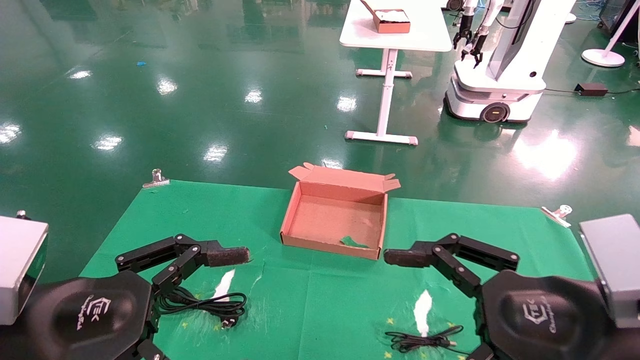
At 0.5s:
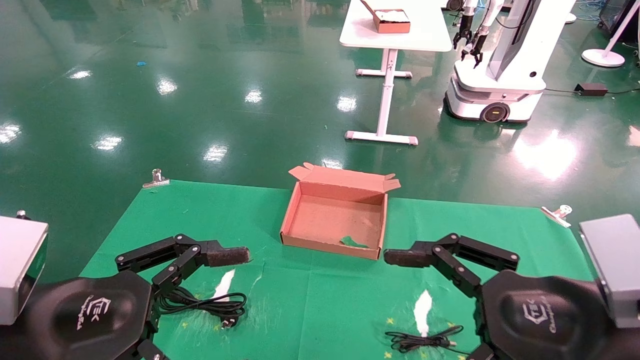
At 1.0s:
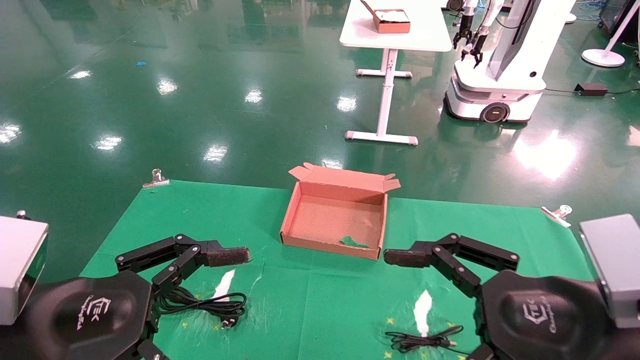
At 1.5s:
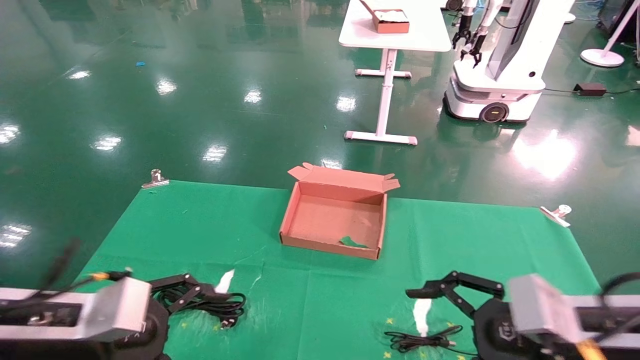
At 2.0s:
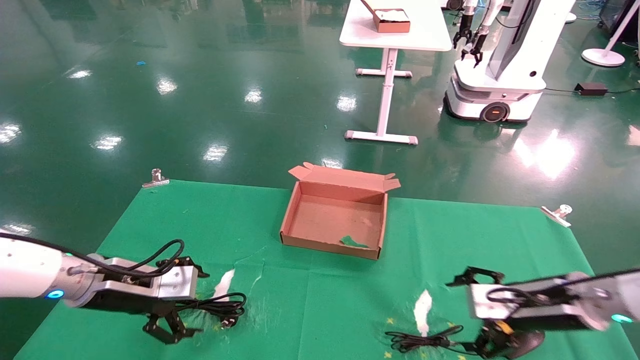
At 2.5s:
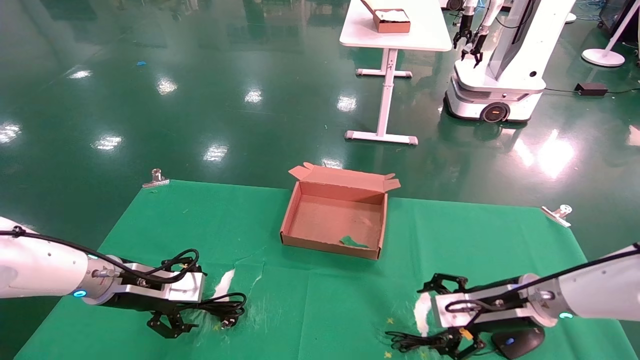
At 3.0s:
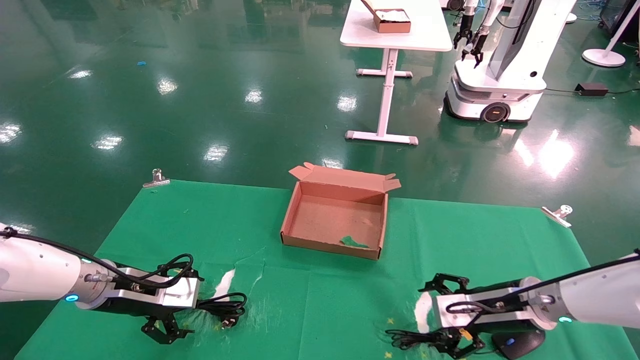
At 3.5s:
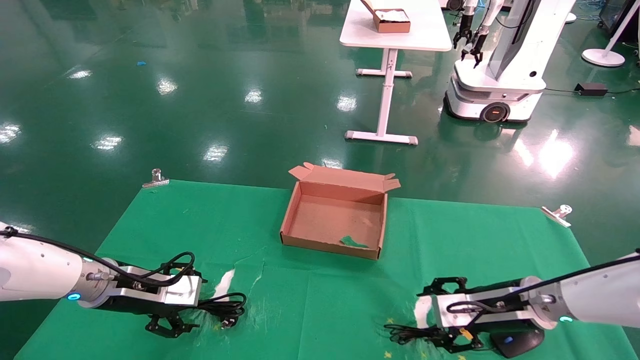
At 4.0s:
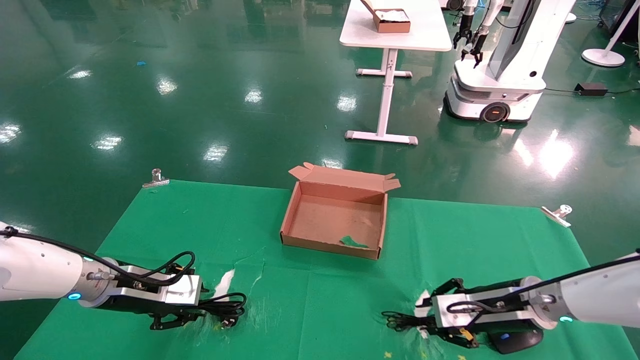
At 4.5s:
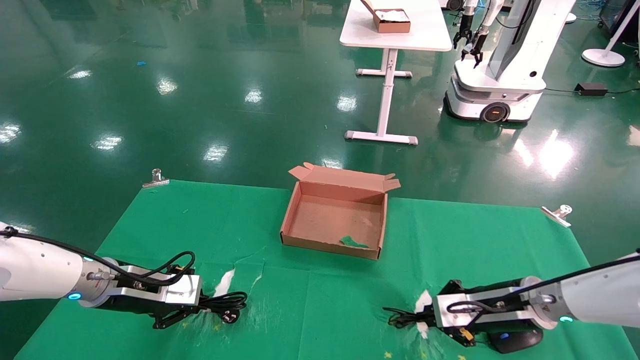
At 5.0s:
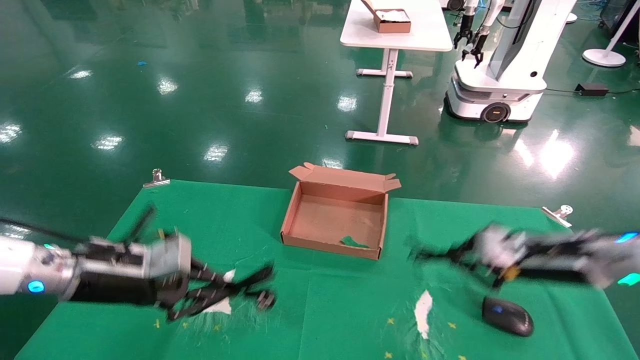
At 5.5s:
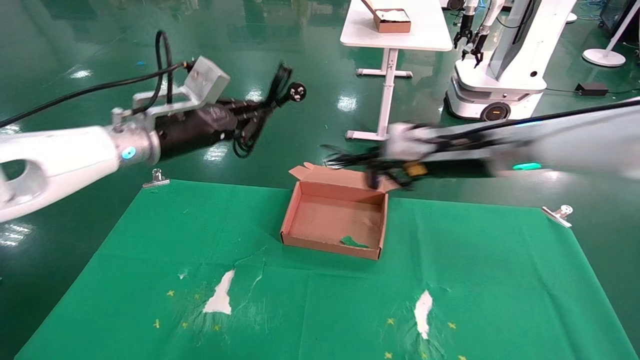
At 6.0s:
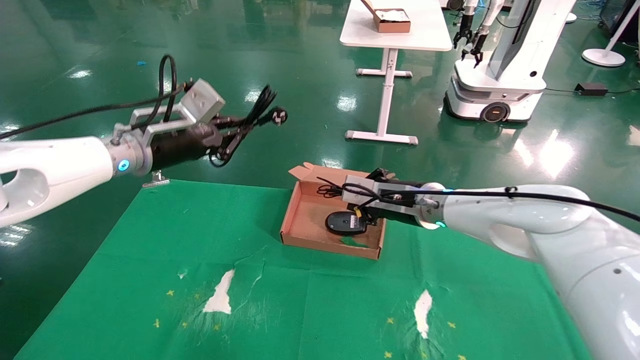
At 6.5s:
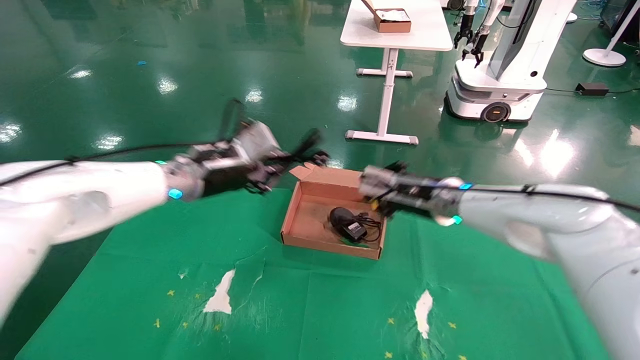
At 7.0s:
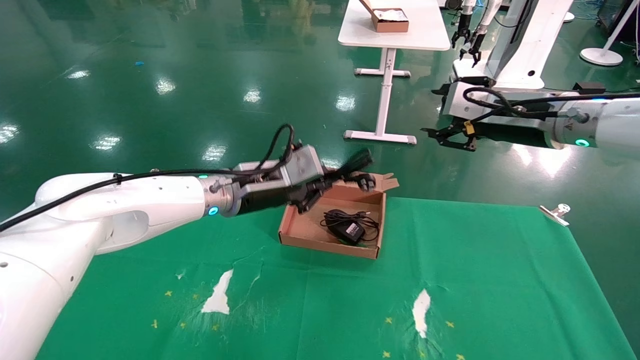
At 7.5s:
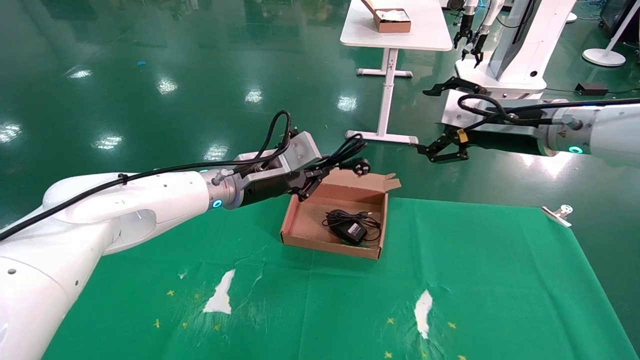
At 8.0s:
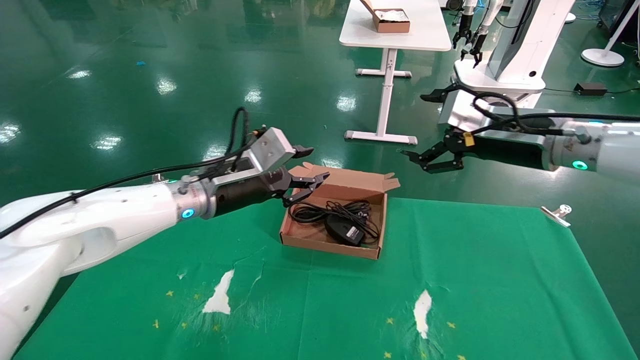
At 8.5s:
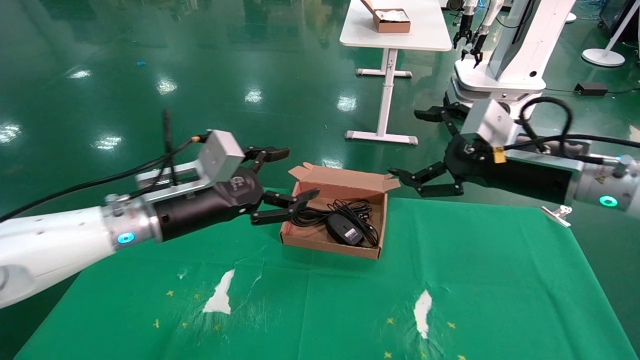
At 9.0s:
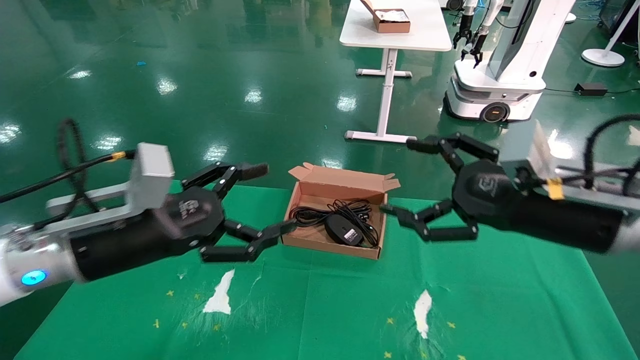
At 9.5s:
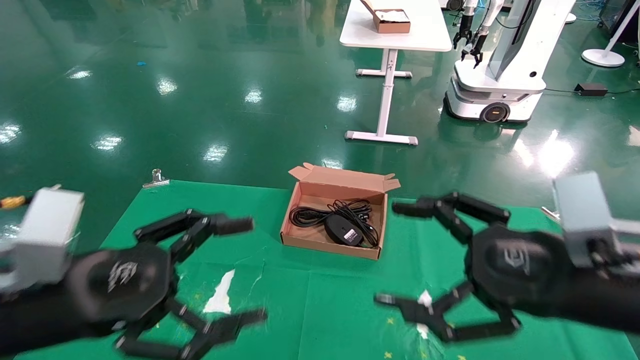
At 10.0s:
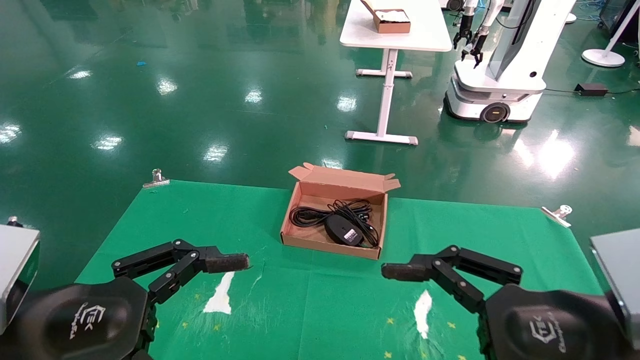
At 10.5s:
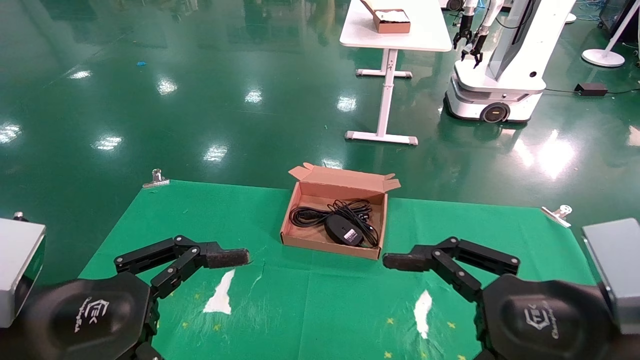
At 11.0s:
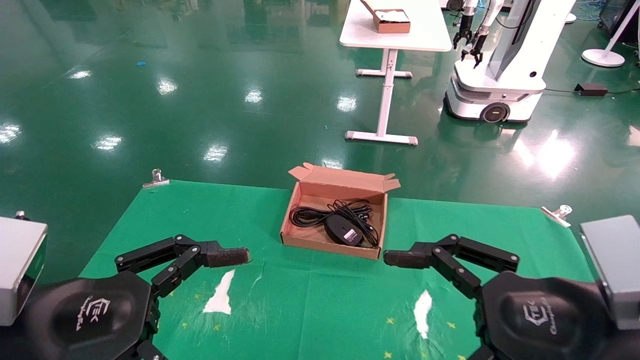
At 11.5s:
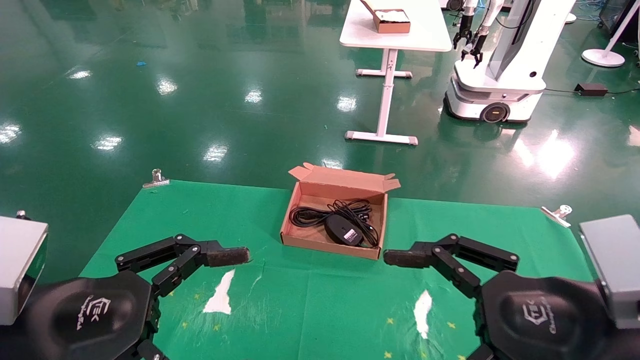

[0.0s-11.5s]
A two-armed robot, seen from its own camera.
Step, 1.5s to 4.0s: Grab and lift both the mouse and power cord from the accessory packaging area at the same time.
Step, 4.5s to 8.0s: Place the mouse and power cord into the box.
0.0s to 2.0s: The left gripper moves forward, approximately 20 cm; the right gripper heads forward and downward, covering approximately 20 cm.
2.0s to 4.0s: The left gripper closes. The right gripper shifts by roughly 5 cm, and closes up.
4.0s to 6.0s: The left gripper is displaced upward by roughly 20 cm, and closes up. The right gripper shifts approximately 20 cm to the left, upward and forward, and closes its fingers.
6.0s to 7.5s: The left gripper moves to the right and downward, roughly 15 cm. The right gripper heads upward, to the right and backward, covering some 20 cm, and opens.
7.5s to 9.5s: The left gripper is displaced backward and to the left by approximately 30 cm, and opens. The right gripper heads backward and downward, covering approximately 25 cm.
